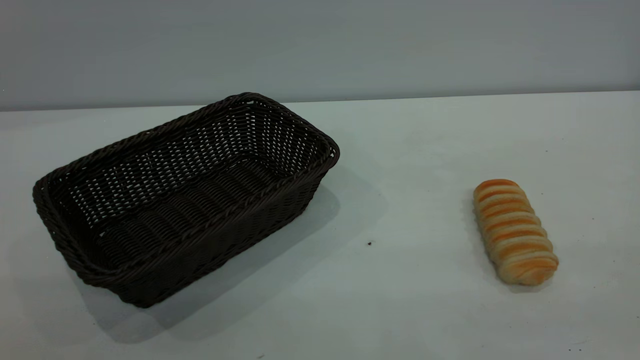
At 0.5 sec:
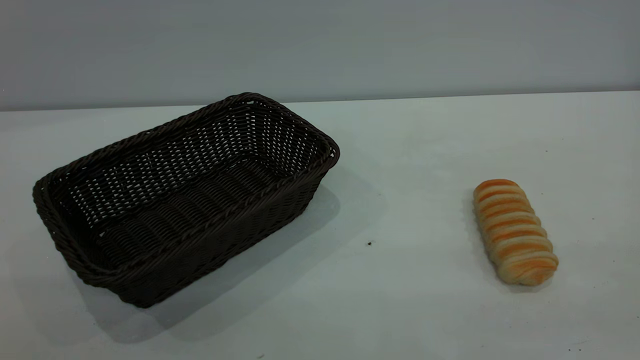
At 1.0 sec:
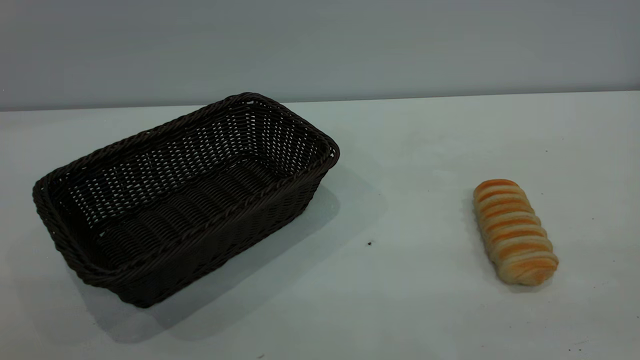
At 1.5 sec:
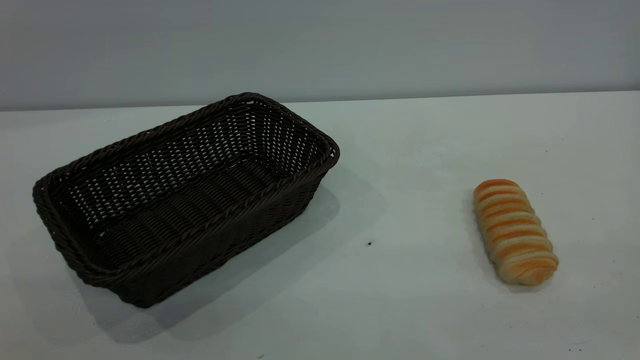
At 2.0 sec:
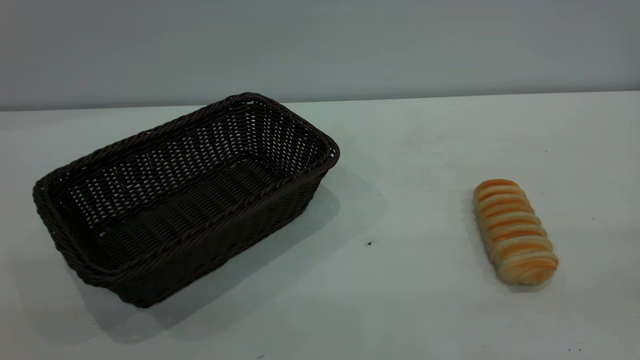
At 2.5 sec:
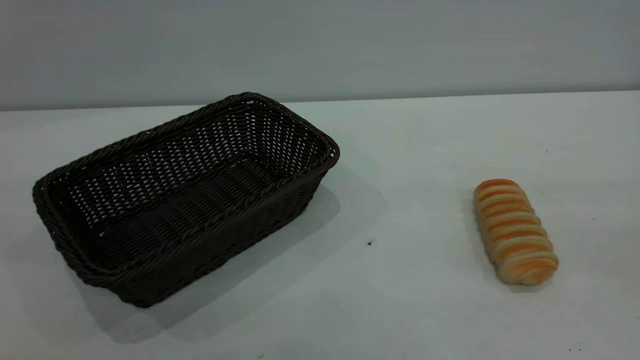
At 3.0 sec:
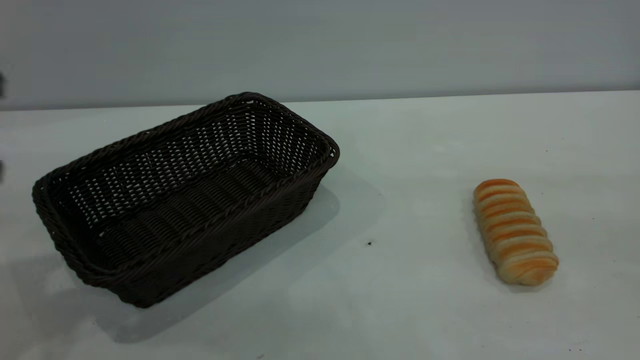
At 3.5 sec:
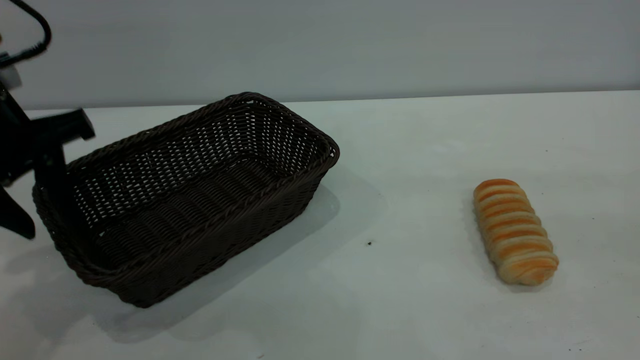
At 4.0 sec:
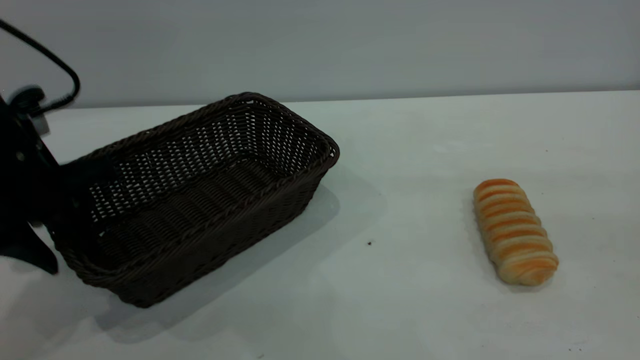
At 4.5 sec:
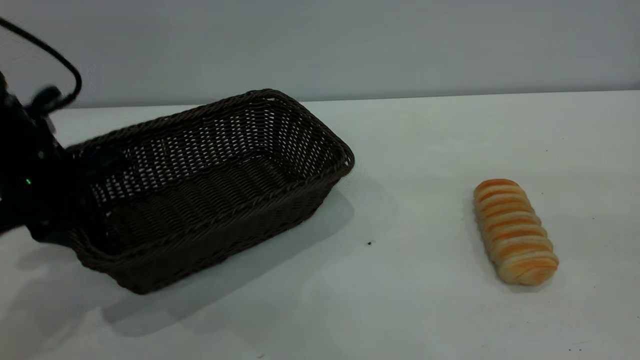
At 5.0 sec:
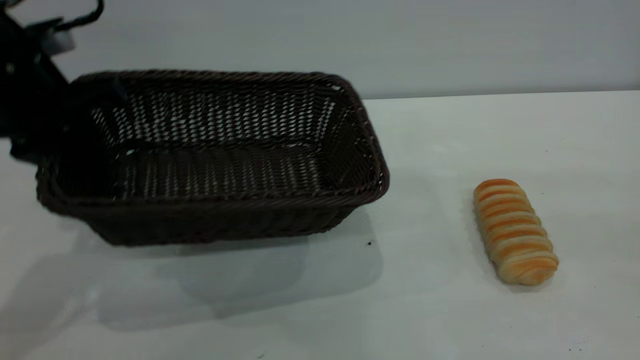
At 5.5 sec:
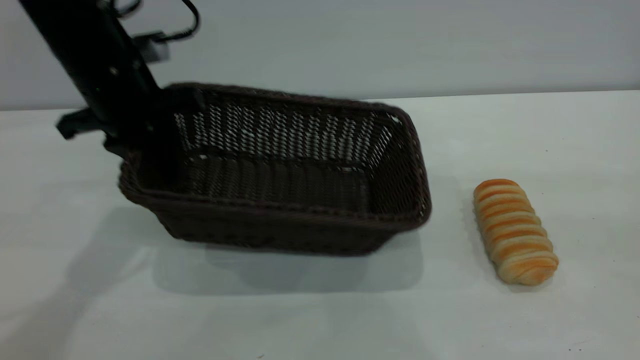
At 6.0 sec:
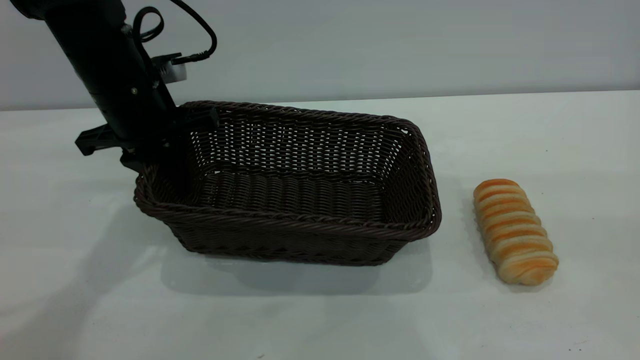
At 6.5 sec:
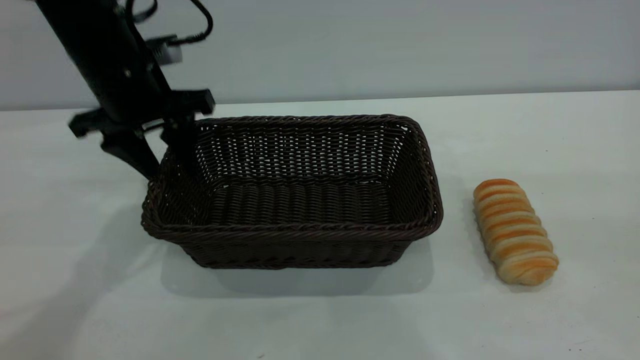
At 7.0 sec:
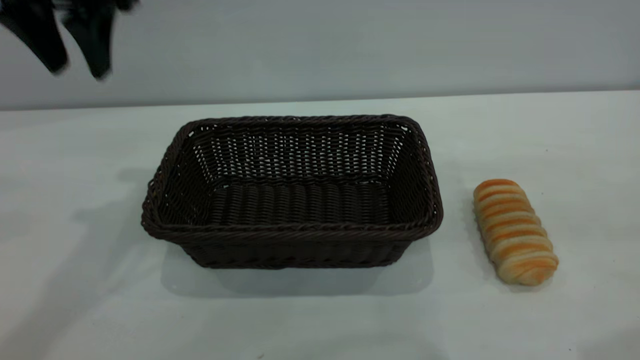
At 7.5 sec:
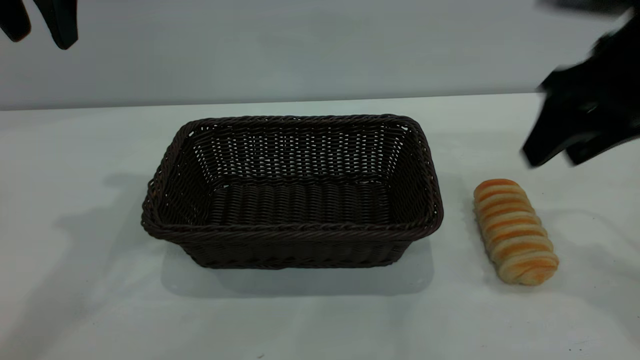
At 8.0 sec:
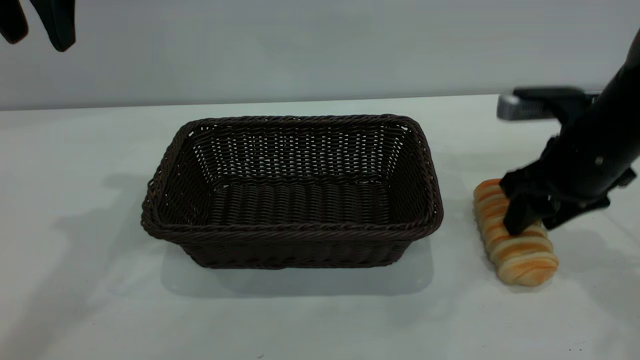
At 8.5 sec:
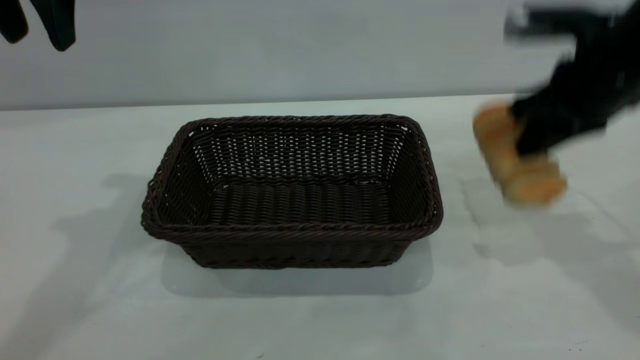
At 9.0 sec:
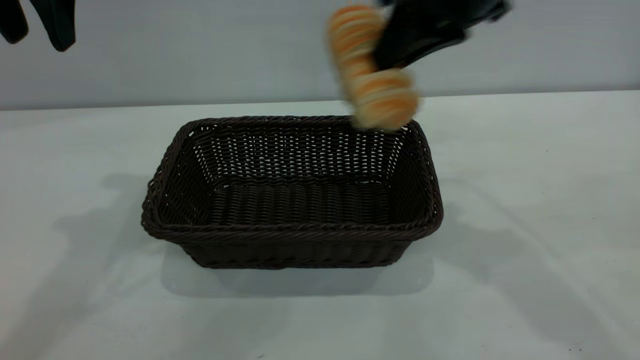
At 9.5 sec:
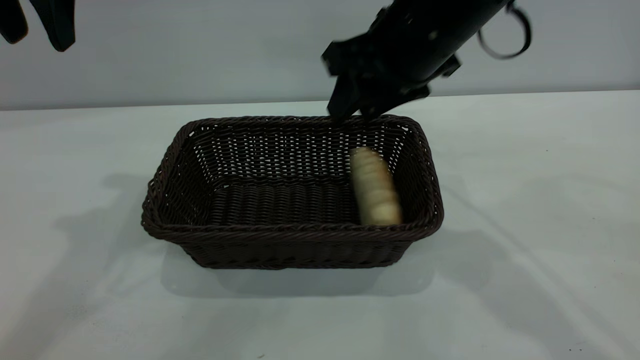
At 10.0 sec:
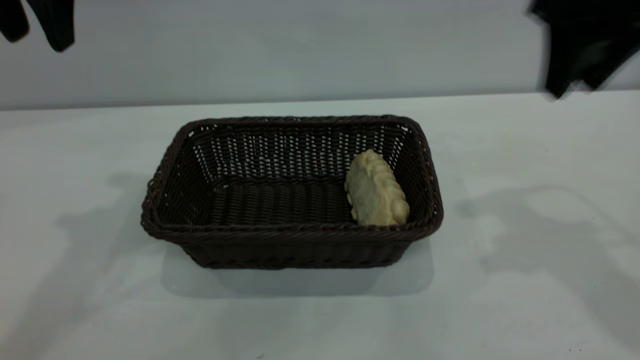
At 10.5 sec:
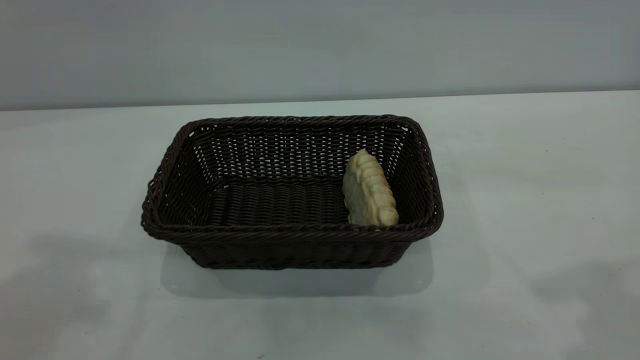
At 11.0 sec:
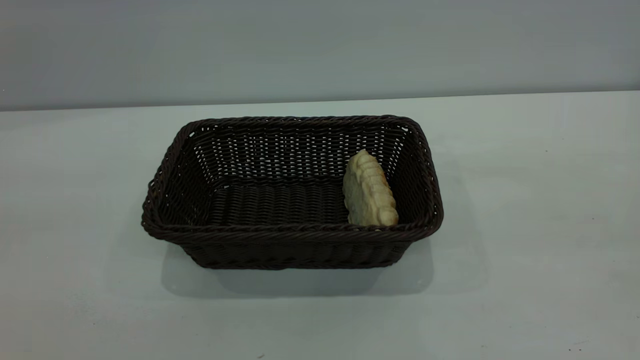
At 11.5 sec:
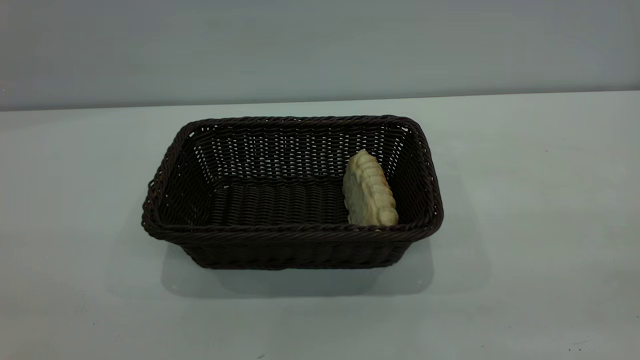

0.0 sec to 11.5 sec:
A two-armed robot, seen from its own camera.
Task of the whole recording: One hand grasps the black basket and places it in the middle of the table, while the other hand picks up the long bread and puts it into the black basket.
Step, 0.0 sec to 6.5 sec: Move the basket to the center of view.
Step, 9.0 sec to 9.5 sec: place the bread into the basket.
2.0 sec to 4.0 sec: The left gripper goes approximately 35 cm forward and downward.
4.0 sec to 6.0 sec: The left gripper travels forward and to the right by about 10 cm, and closes up.
6.0 sec to 7.5 sec: The right gripper moves forward and downward, some 25 cm, while the left gripper goes roughly 20 cm upward, and opens up.
7.5 sec to 9.5 sec: The right gripper heads to the left, covering approximately 15 cm, reaches some 10 cm downward, then returns, and closes, then opens again.
9.5 sec to 11.5 sec: The left gripper shifts approximately 40 cm backward; the right gripper heads backward and to the right, covering approximately 40 cm.
